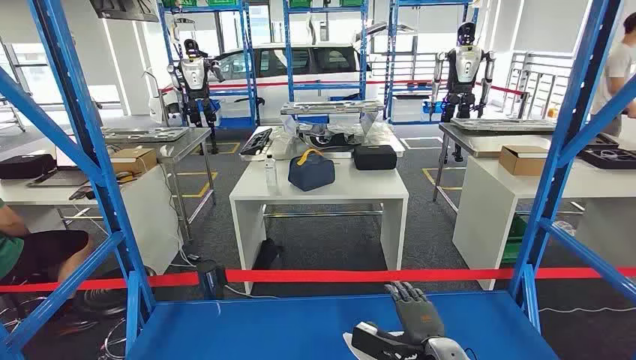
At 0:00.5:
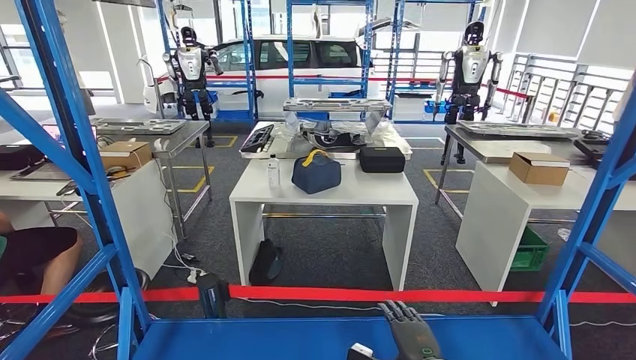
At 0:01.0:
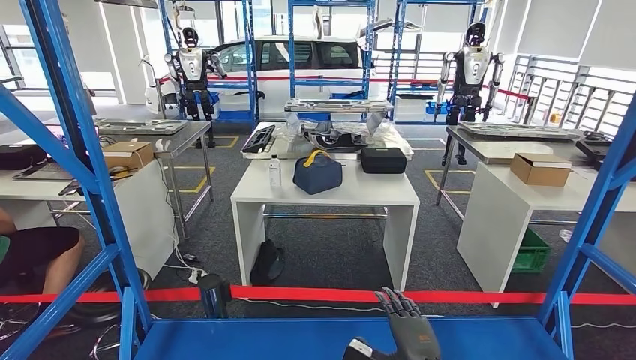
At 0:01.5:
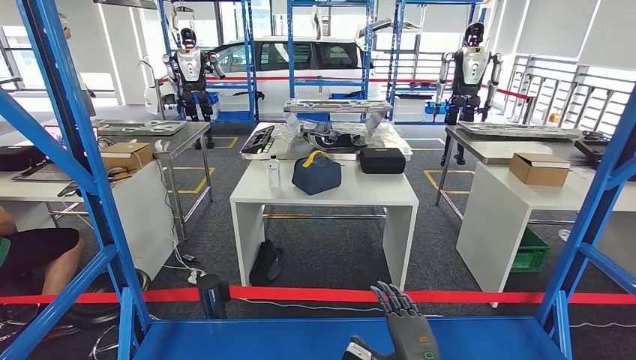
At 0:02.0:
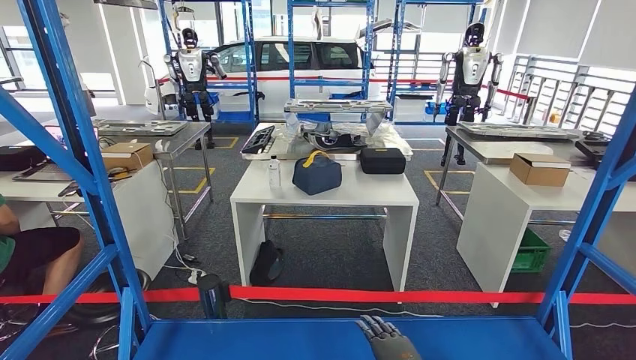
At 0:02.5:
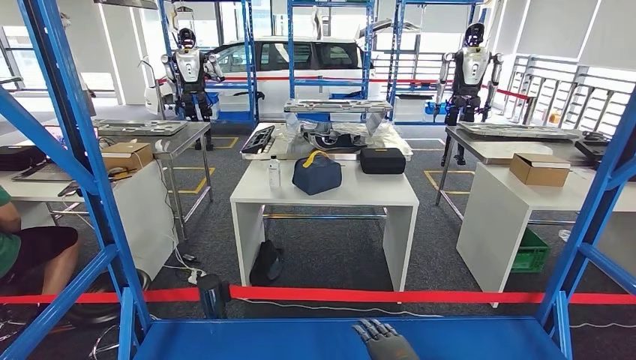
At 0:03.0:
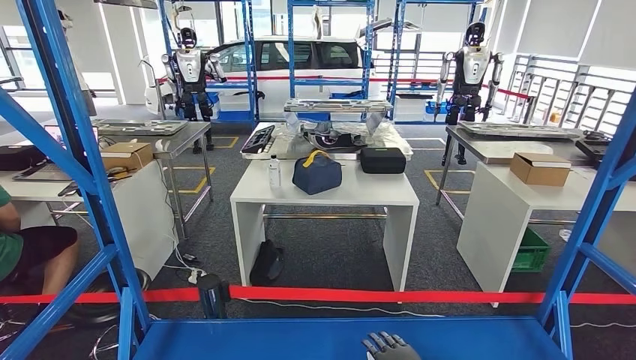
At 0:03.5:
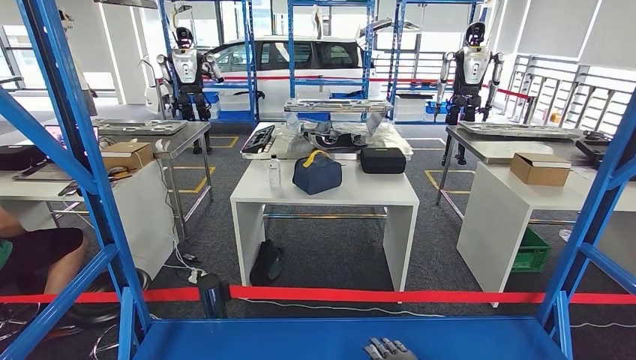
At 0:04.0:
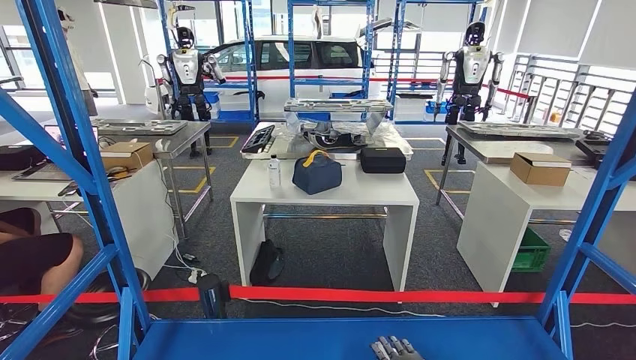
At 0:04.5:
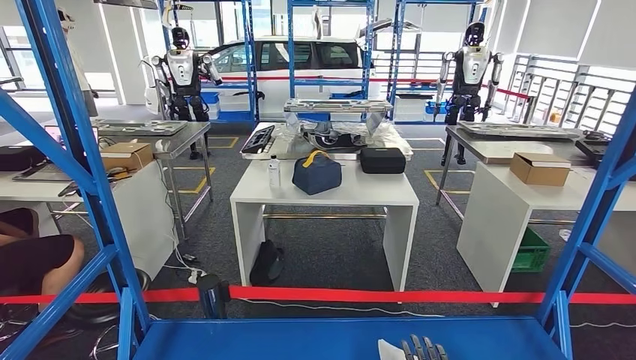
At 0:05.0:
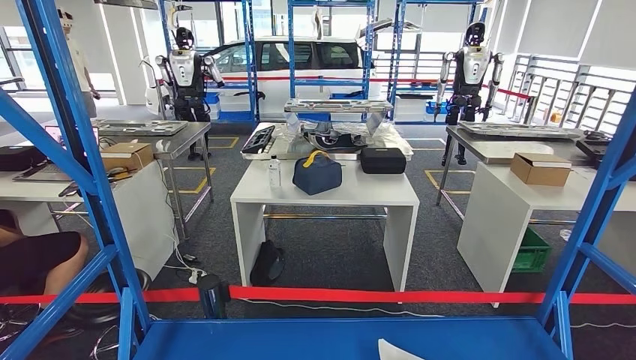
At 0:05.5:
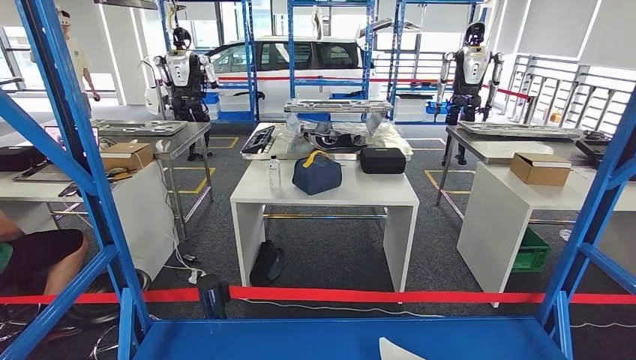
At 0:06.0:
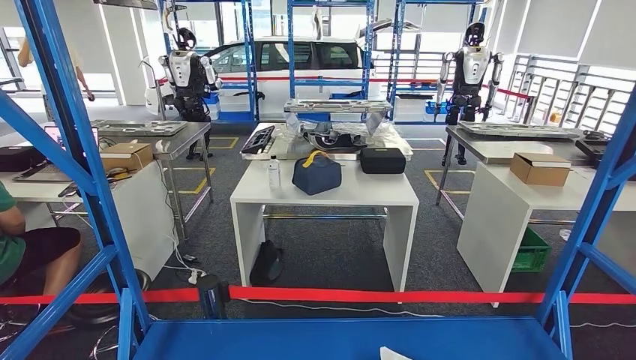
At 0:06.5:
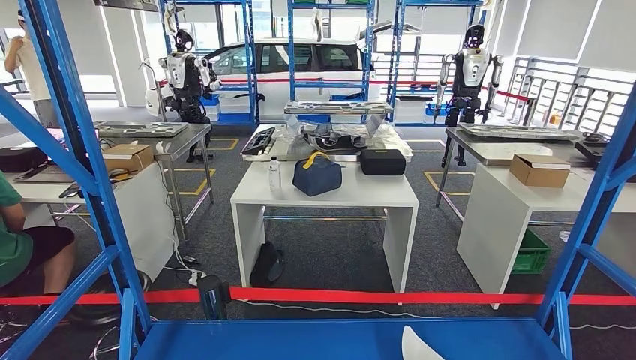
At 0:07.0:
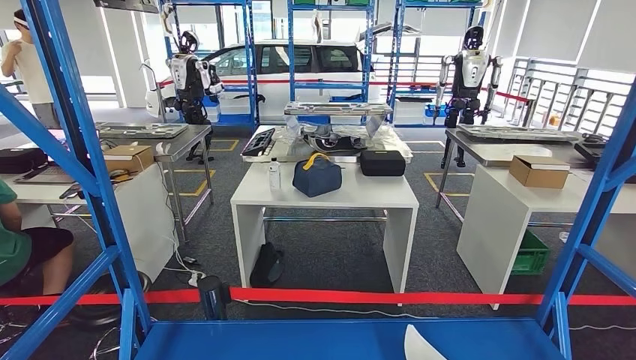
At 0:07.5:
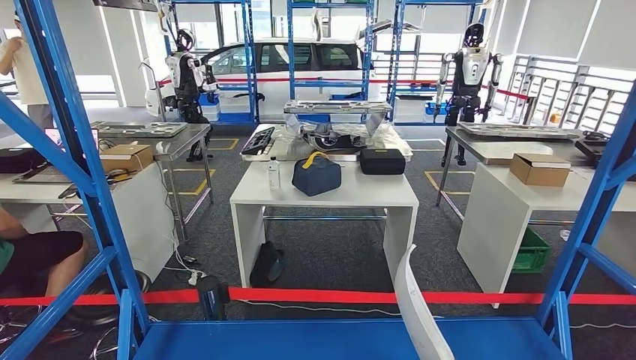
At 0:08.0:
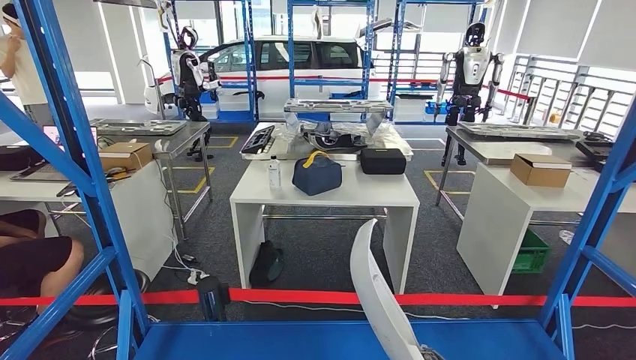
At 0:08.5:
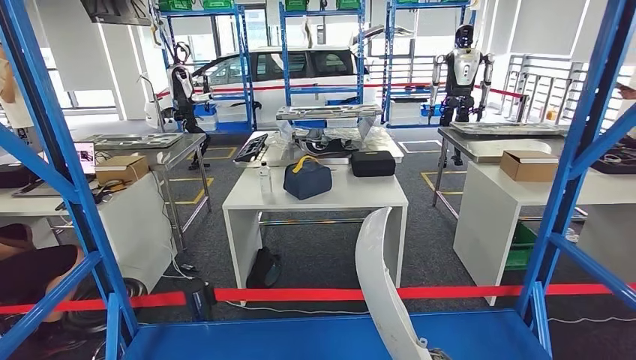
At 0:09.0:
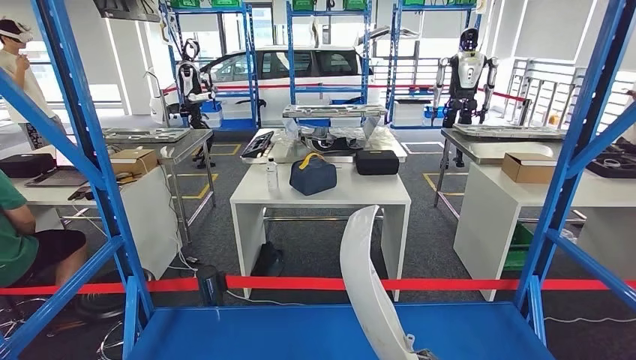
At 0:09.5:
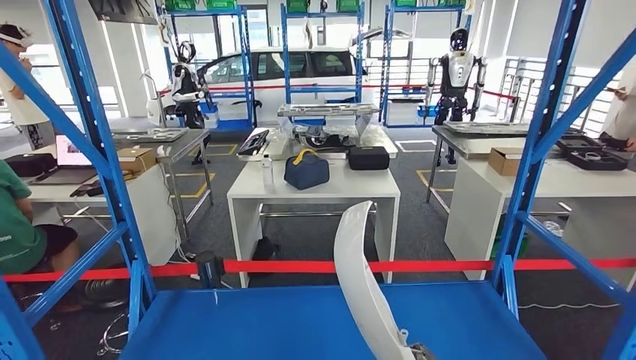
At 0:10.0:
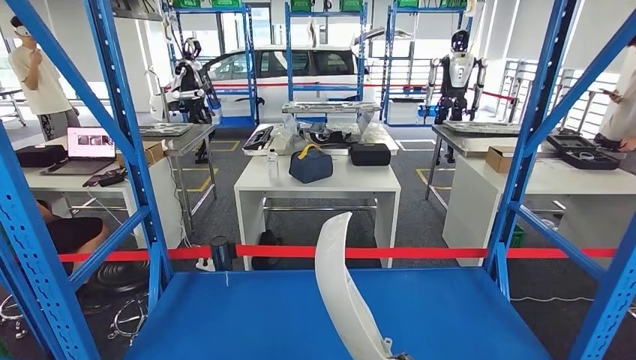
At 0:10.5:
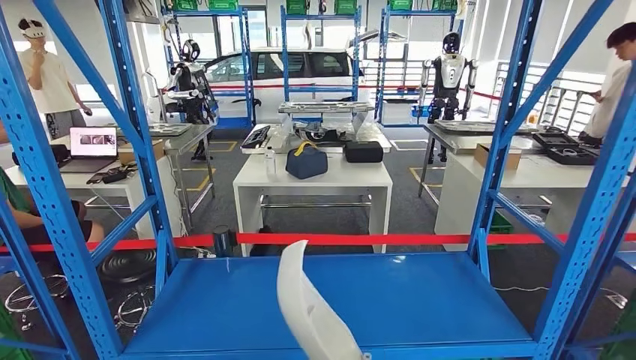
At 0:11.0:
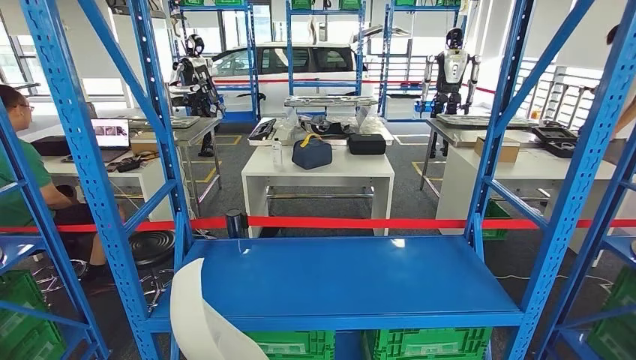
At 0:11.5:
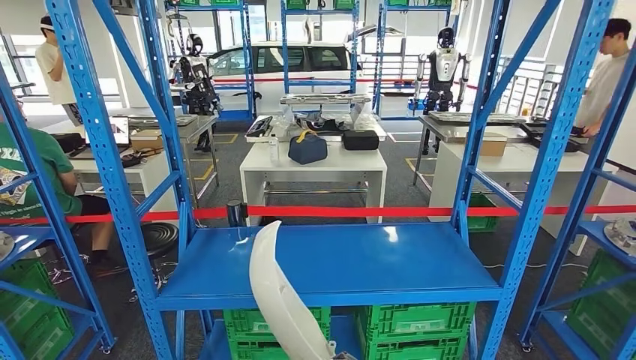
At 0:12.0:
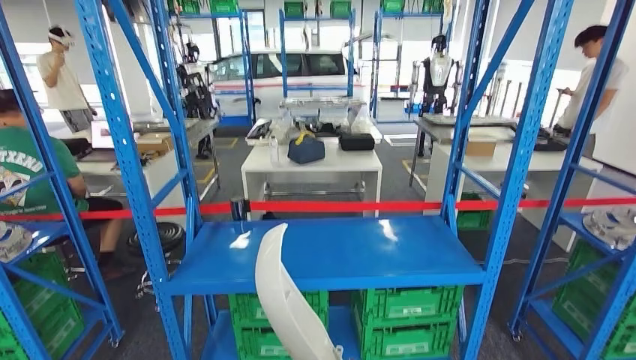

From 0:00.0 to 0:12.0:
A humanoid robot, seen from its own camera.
Step, from 0:00.0 to 0:09.0: Pick up the small component from the shelf.
From 0:04.0 to 0:06.0: The right hand heads backward, covering roughly 15 cm.
From 0:06.0 to 0:08.0: The right hand is displaced upward and to the left by some 15 cm.

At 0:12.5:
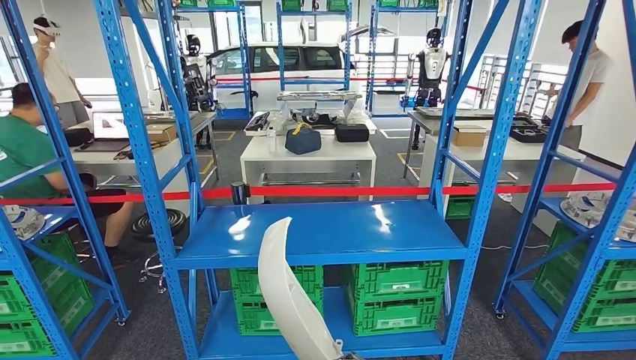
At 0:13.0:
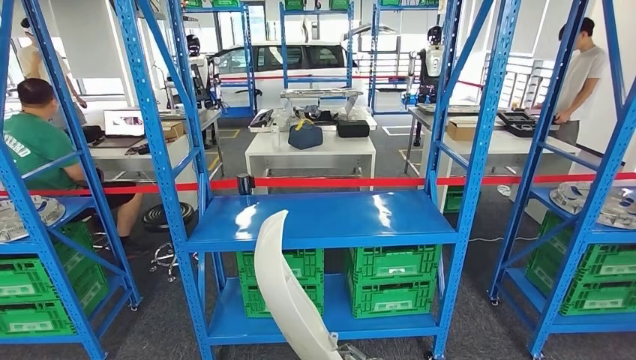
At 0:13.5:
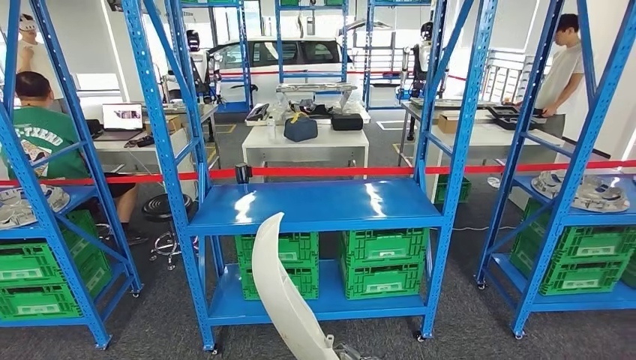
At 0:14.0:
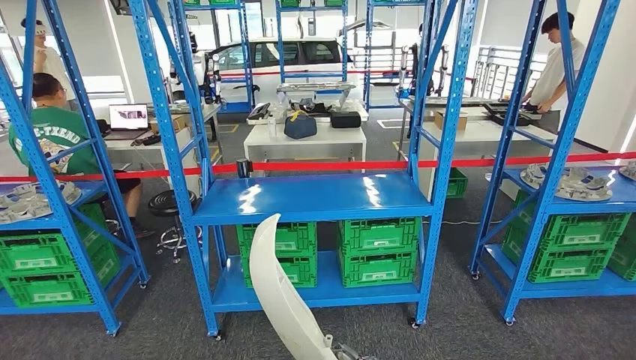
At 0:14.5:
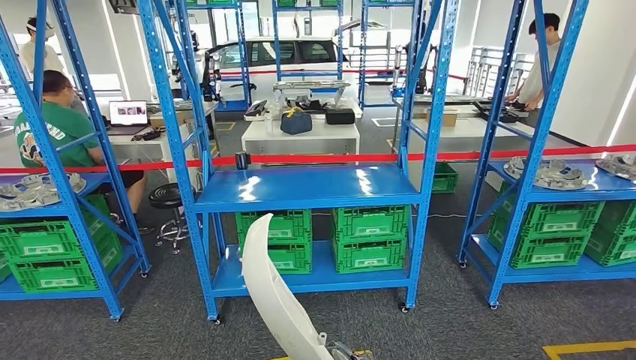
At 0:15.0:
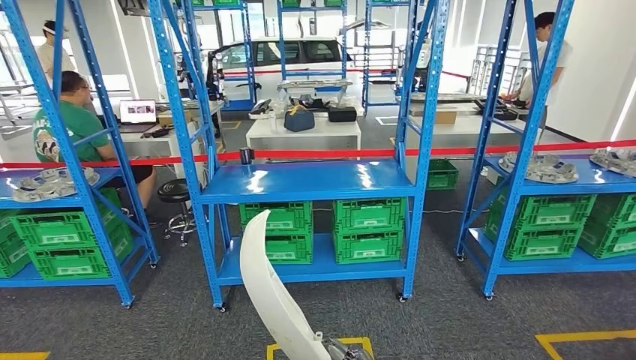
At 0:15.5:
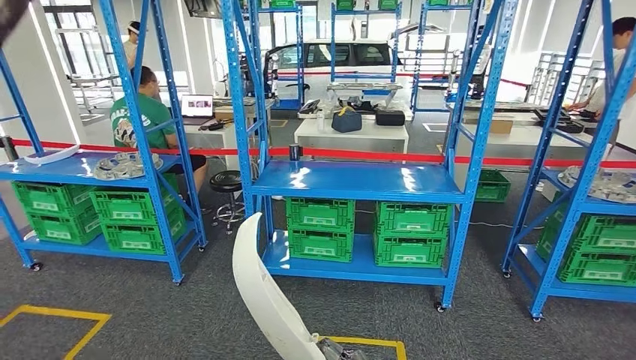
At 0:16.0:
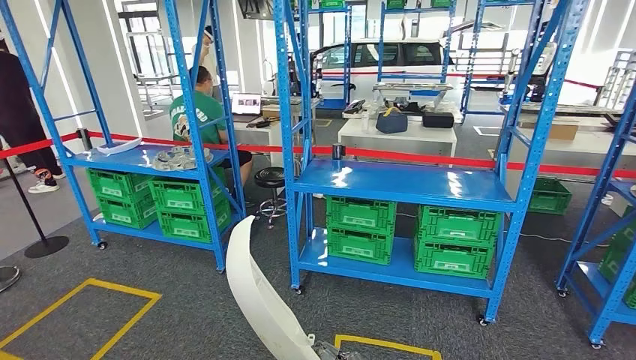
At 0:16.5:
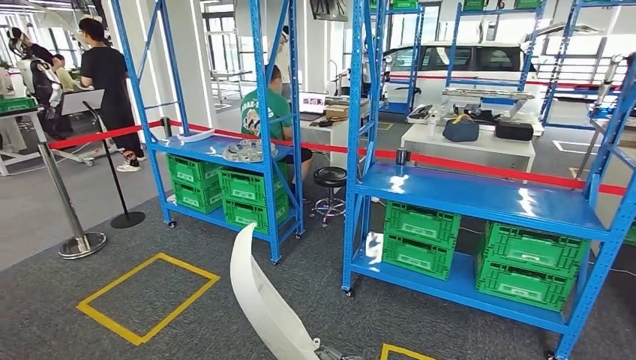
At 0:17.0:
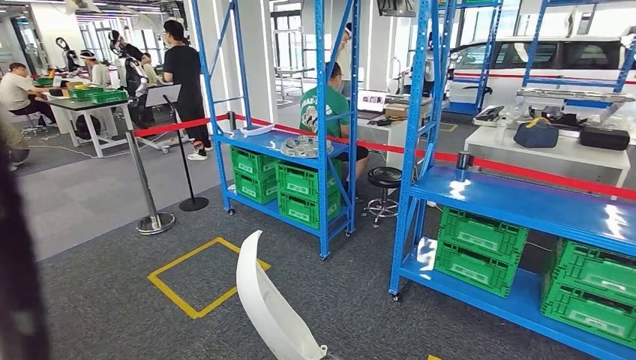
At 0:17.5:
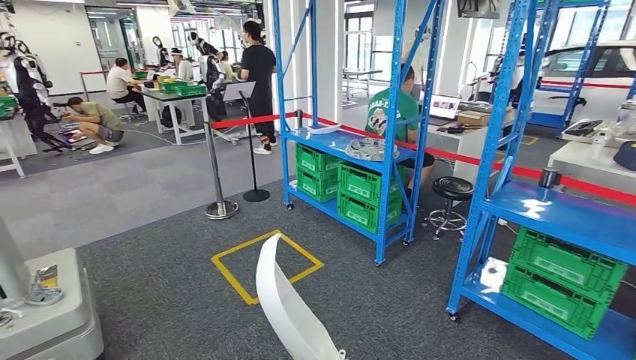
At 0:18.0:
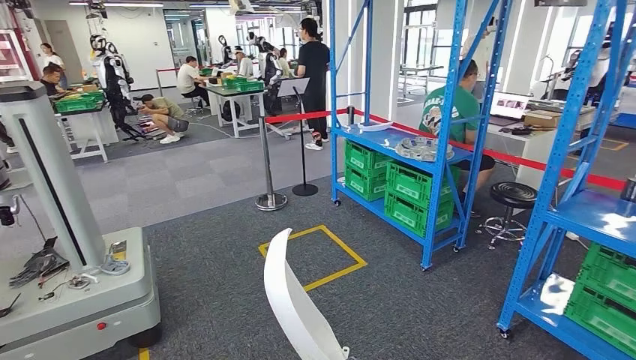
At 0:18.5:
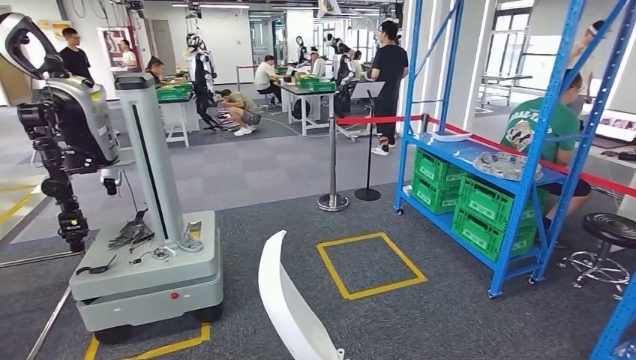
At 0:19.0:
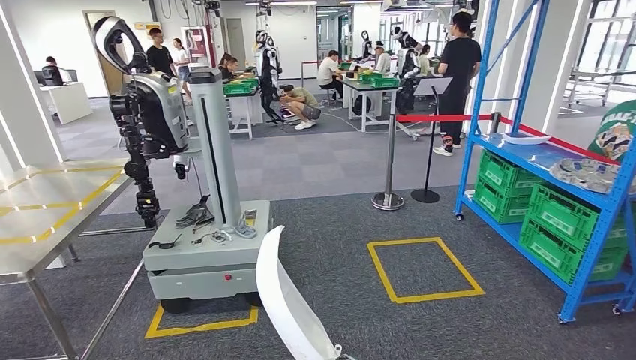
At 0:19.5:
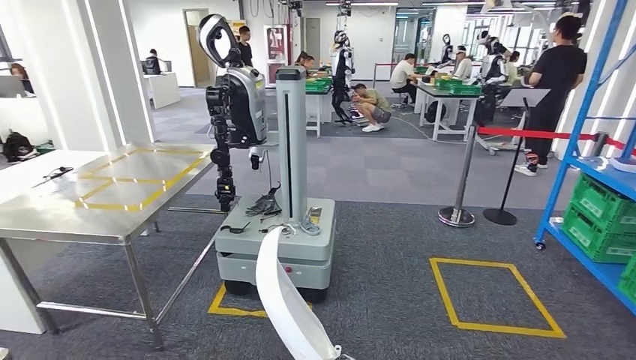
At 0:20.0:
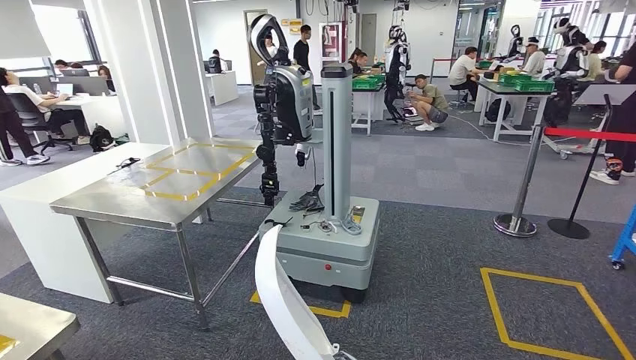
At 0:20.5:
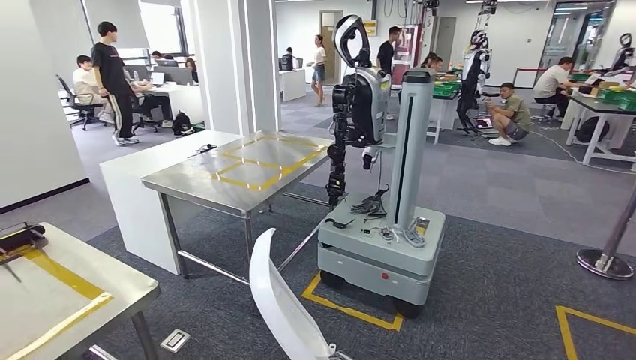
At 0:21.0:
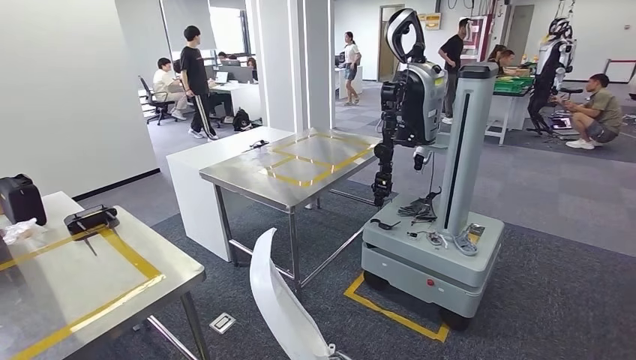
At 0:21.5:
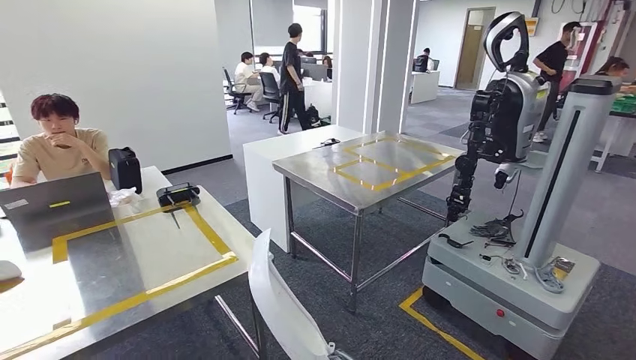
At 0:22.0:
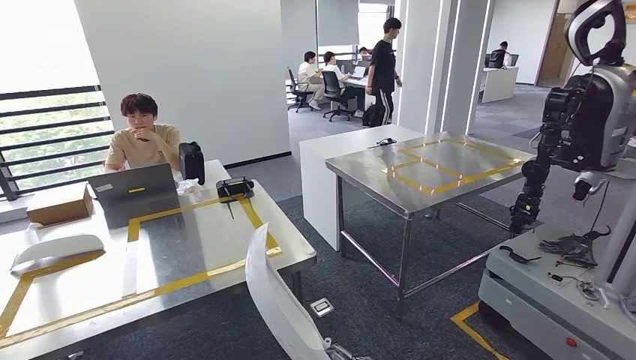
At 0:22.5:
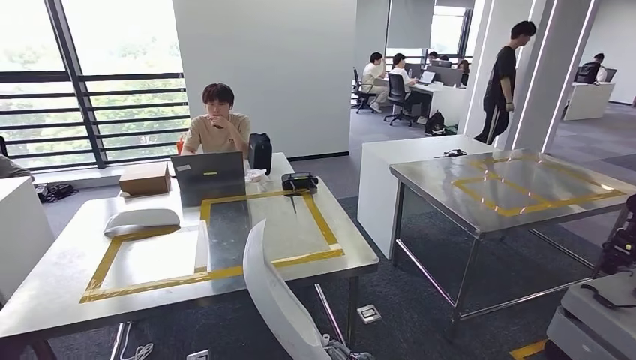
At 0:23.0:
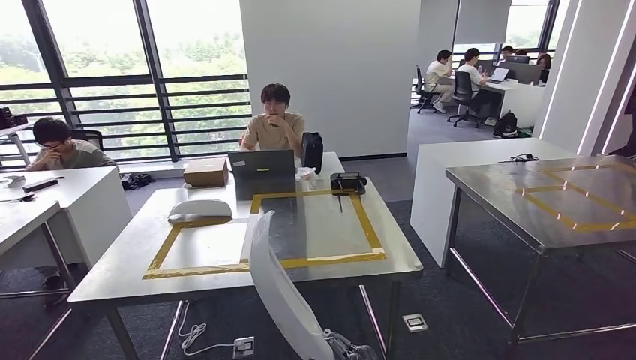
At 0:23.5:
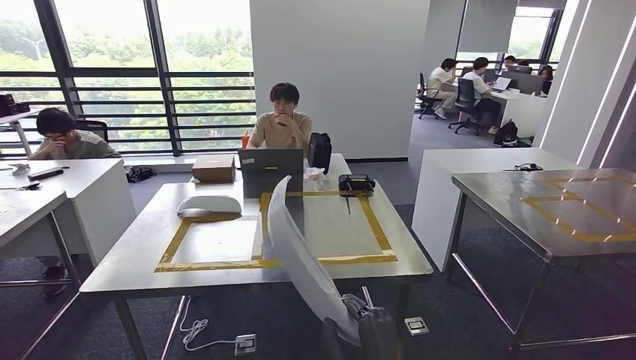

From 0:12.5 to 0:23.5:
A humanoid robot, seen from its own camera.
Step, from 0:12.5 to 0:23.0: Bring the small component to the front of the workbench.
